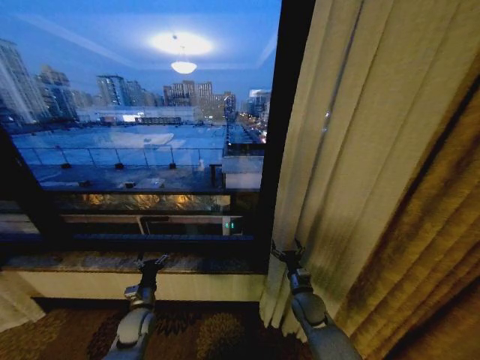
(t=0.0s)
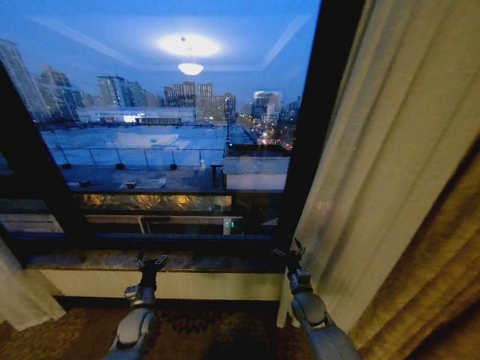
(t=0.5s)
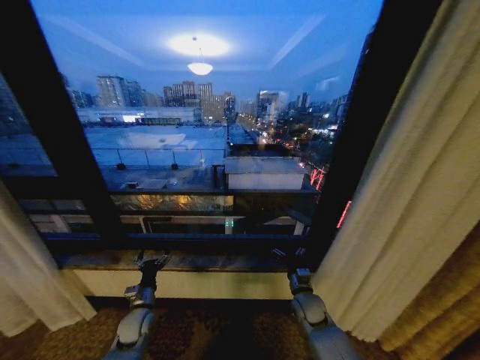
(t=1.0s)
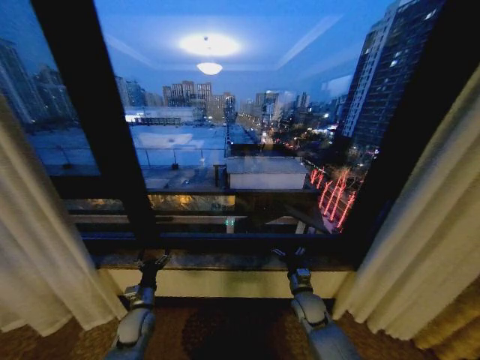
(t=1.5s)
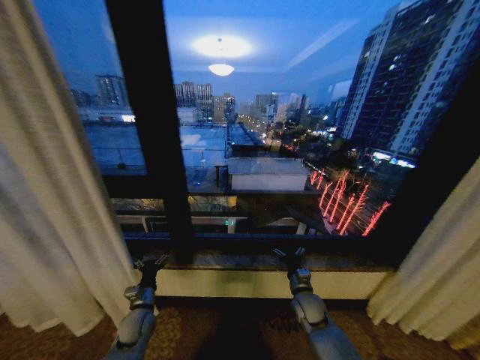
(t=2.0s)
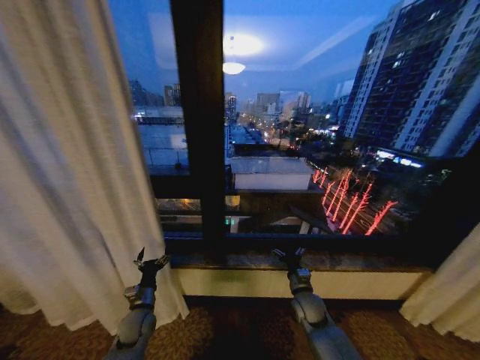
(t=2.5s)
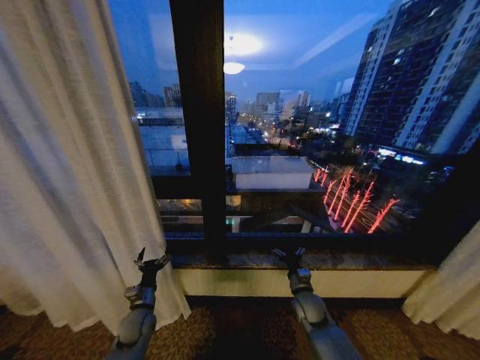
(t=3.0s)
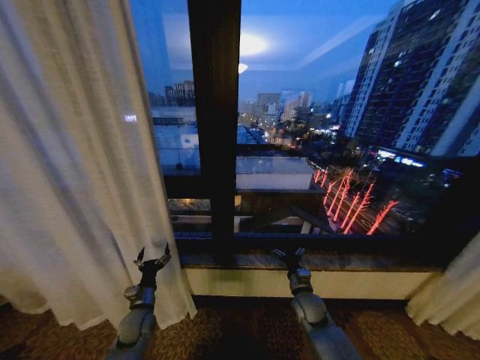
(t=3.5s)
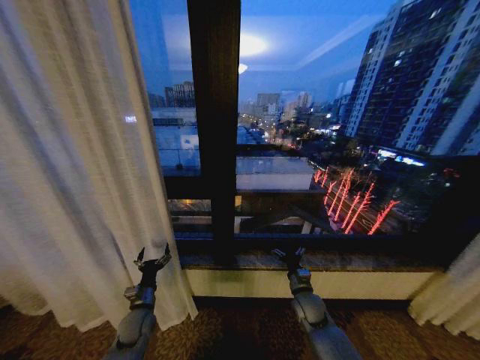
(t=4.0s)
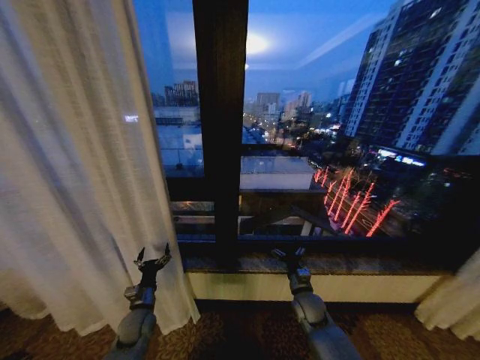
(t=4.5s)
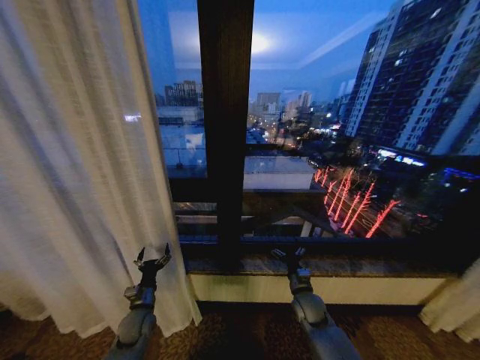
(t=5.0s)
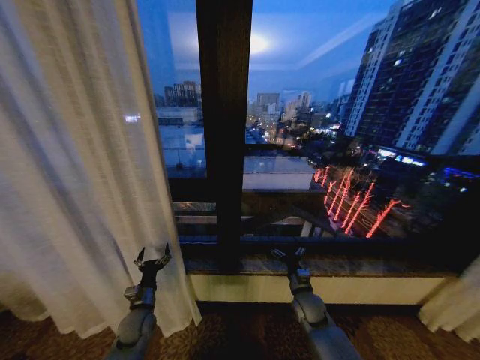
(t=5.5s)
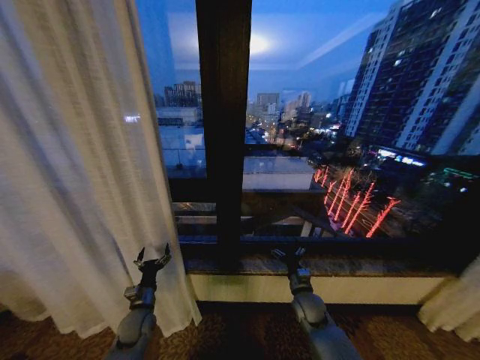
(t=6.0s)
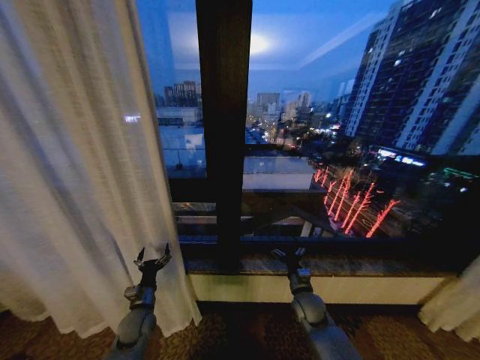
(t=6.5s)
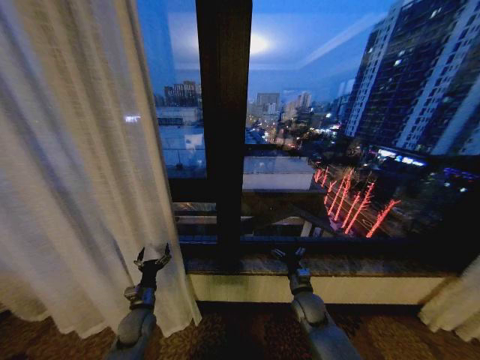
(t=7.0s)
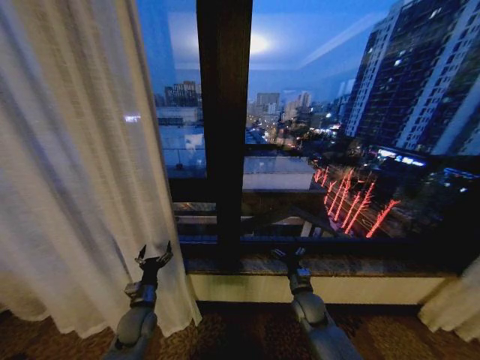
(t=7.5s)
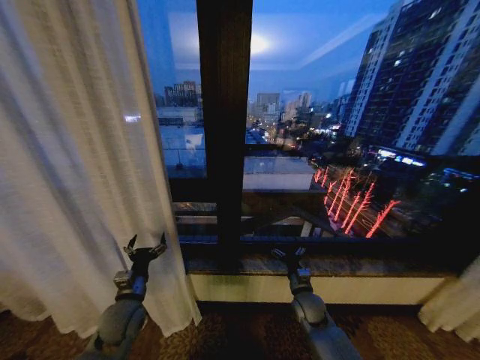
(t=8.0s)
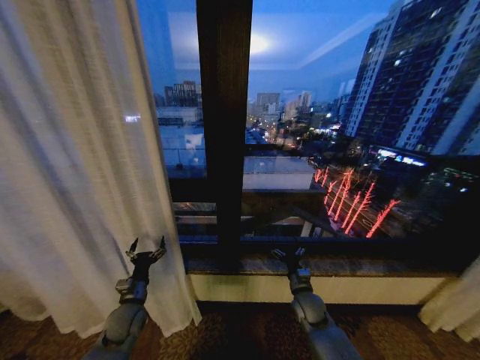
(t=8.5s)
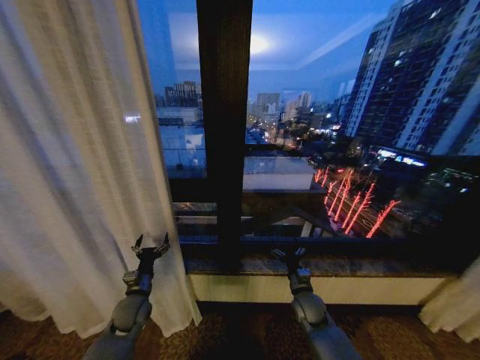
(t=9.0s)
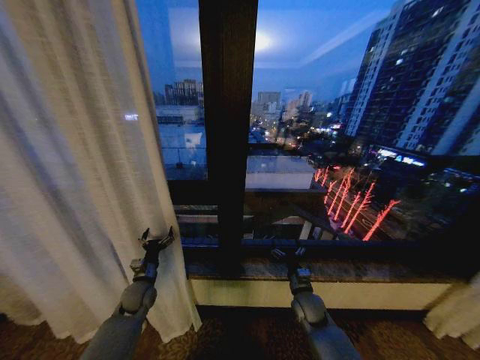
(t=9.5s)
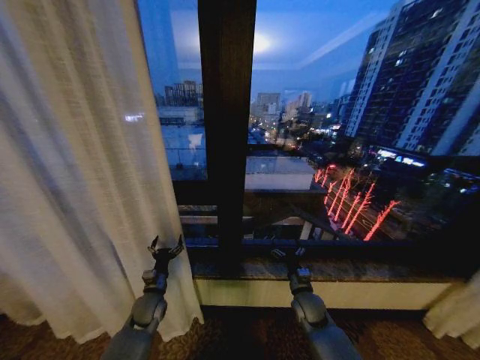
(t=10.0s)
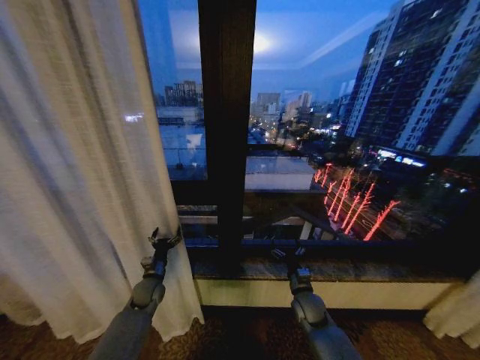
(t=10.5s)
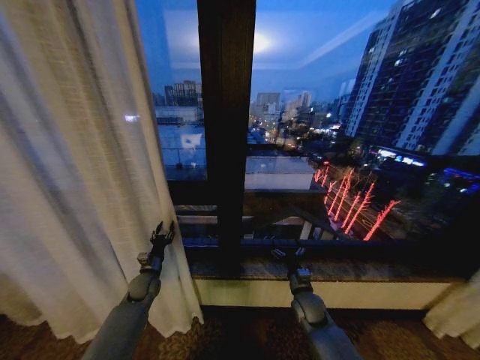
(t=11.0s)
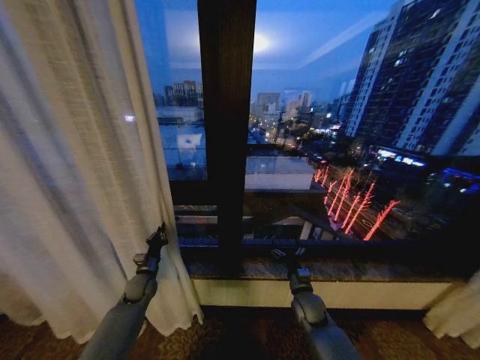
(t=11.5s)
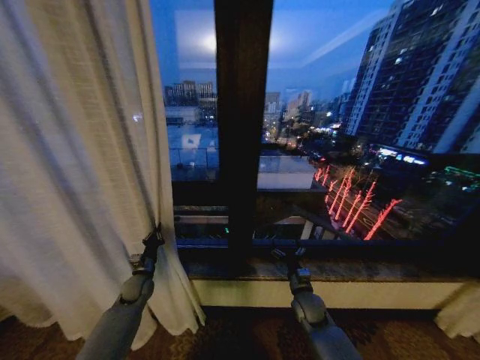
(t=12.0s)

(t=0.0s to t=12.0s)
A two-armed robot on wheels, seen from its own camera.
Task of the whole recording: Open the curtains by pulling them apart, changing their state from closed to fully open.
t=4.0s - t=6.0s: Both grippers stay about where they are.
t=6.0s - t=8.0s: The left gripper shifts roughly 10 cm upward.
t=8.0s - t=10.0s: The left gripper shifts approximately 10 cm downward and forward.
t=10.0s - t=12.0s: The left gripper goes roughly 10 cm to the left and forward, and closes.

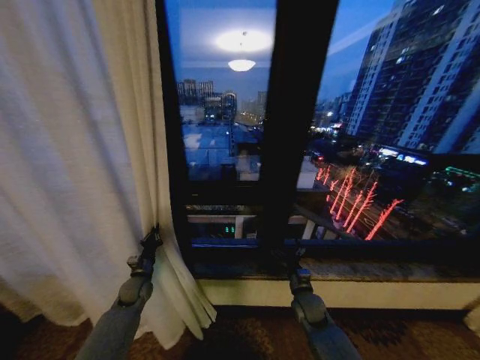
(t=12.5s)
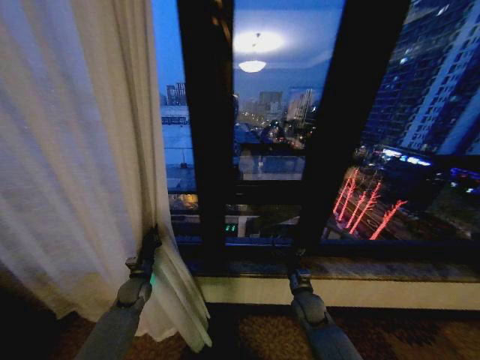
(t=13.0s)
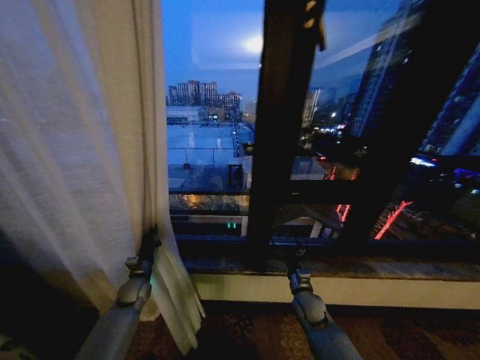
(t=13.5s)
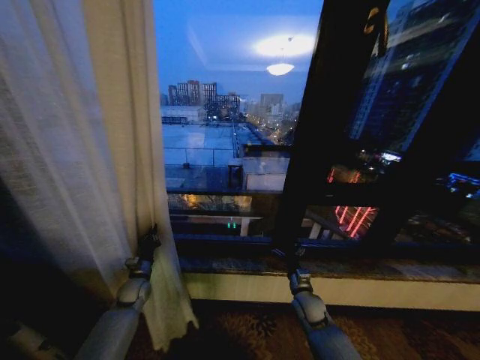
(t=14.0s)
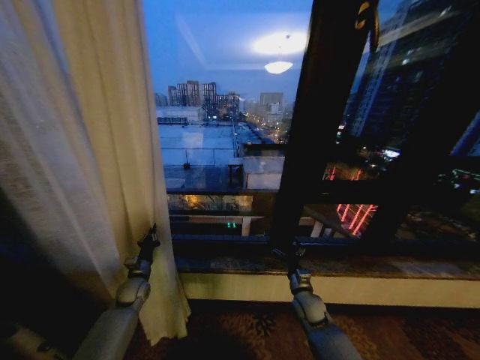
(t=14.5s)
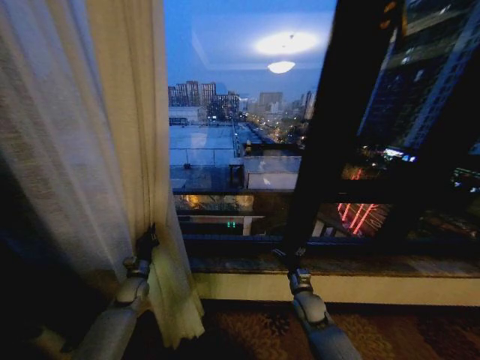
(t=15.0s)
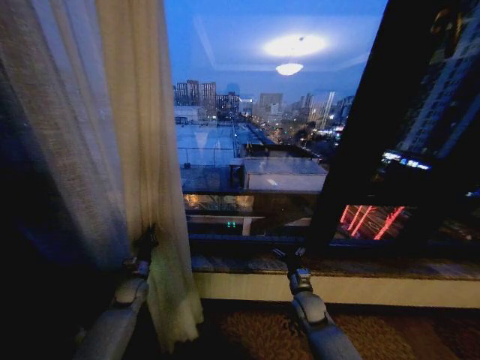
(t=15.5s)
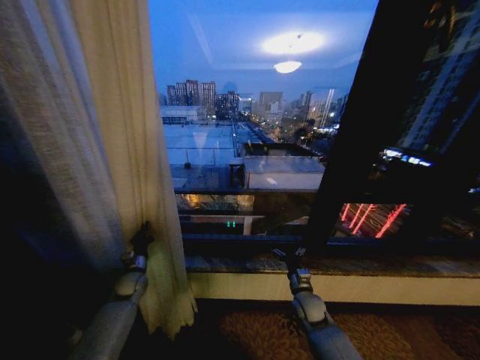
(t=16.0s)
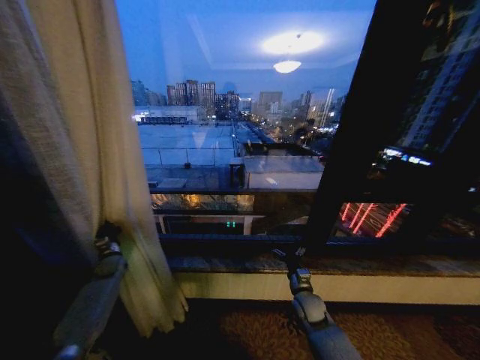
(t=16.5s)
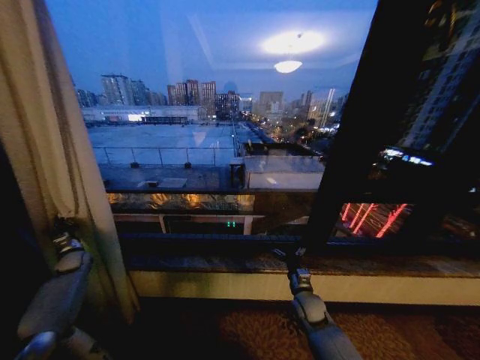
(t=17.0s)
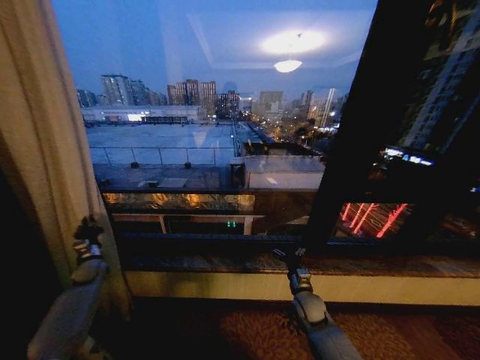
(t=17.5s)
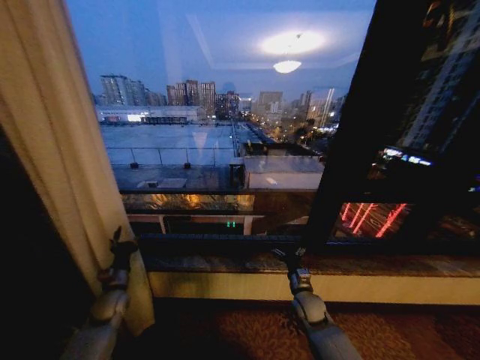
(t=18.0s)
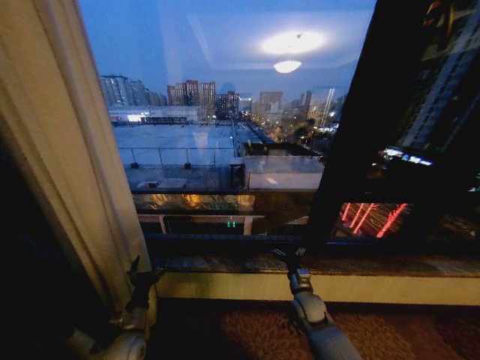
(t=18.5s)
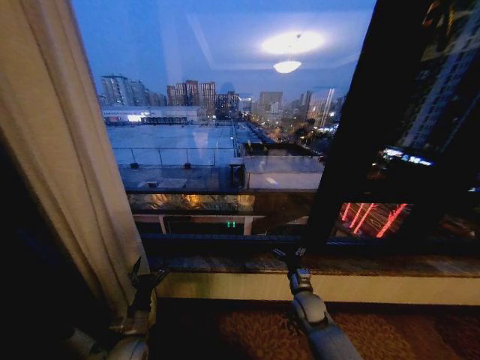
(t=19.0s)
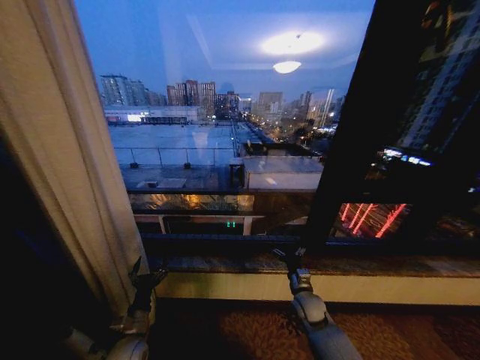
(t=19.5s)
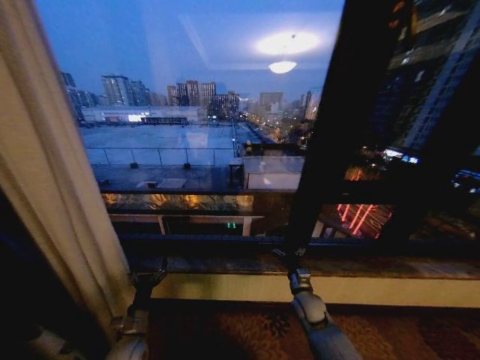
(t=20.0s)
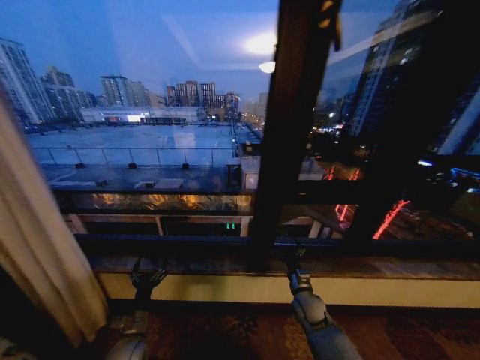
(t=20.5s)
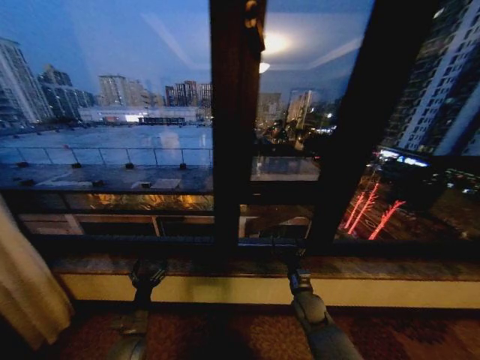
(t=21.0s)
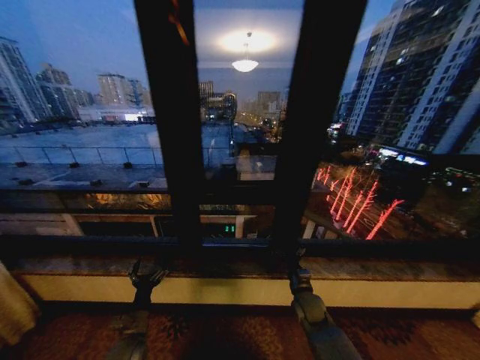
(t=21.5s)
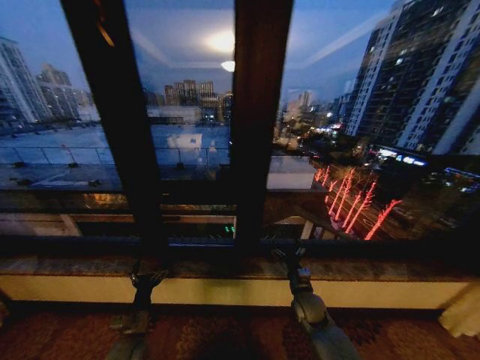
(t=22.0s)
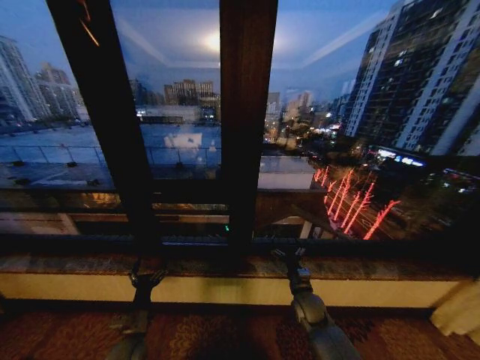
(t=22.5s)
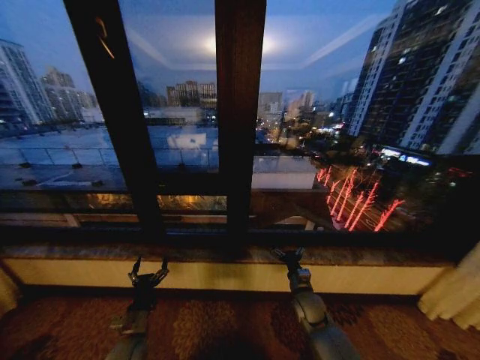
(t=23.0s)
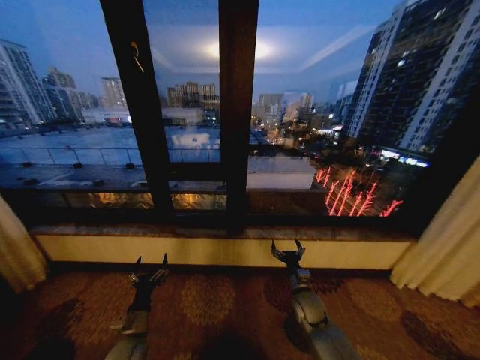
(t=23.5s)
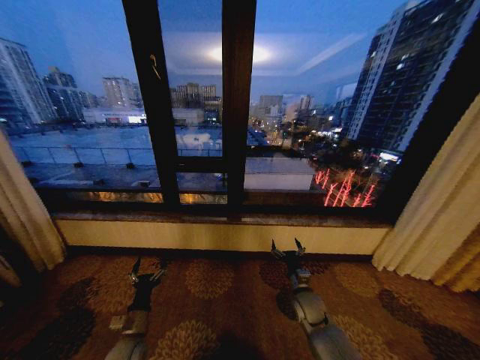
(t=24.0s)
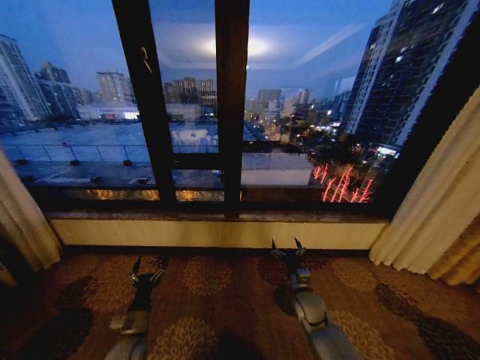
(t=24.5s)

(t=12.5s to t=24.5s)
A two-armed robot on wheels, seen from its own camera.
Task of the whole recording: Open the curtains by pulling them apart, changing their state from closed to fully open.
t=14.5s - t=16.5s: The left gripper shifts some 15 cm to the left and forward.
t=16.5s - t=18.5s: The left gripper is displaced backward and to the right by approximately 25 cm, and opens up.
